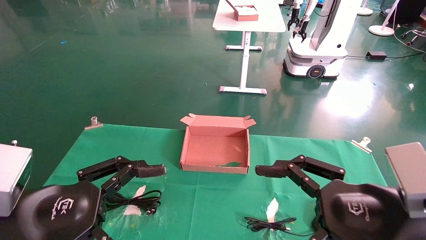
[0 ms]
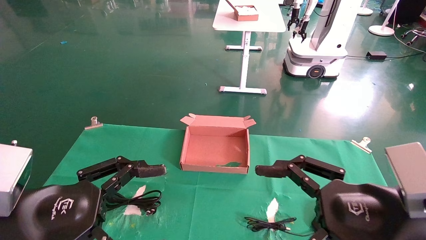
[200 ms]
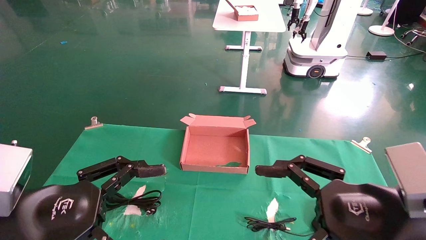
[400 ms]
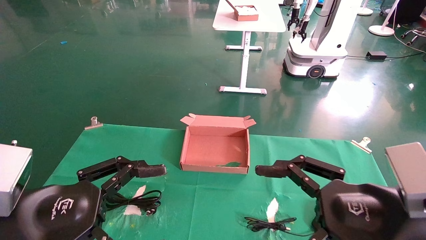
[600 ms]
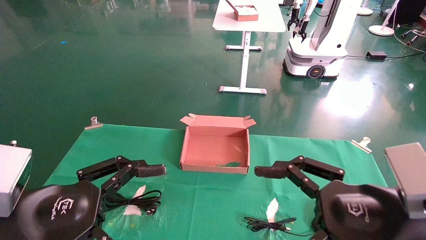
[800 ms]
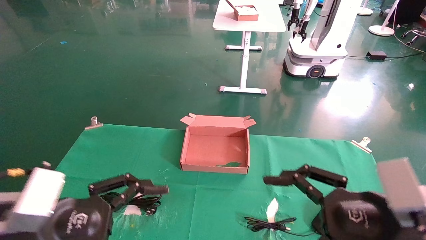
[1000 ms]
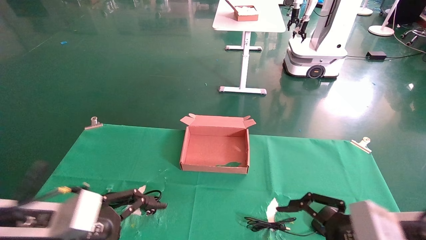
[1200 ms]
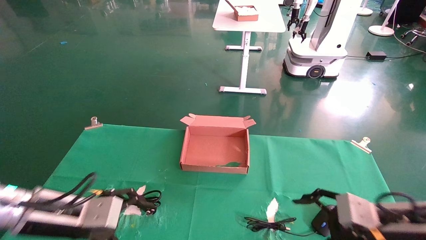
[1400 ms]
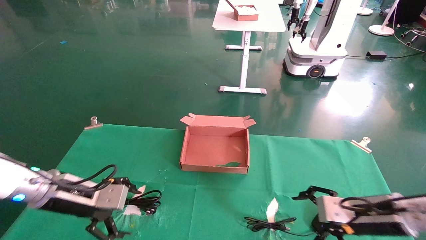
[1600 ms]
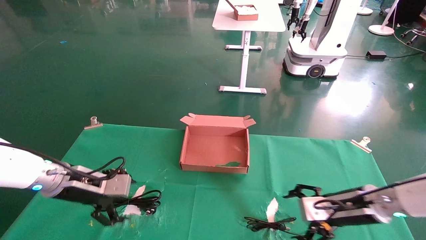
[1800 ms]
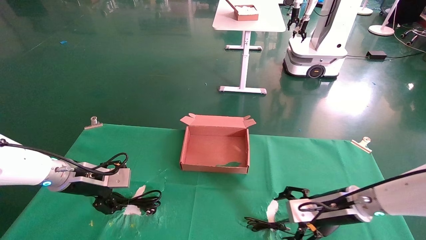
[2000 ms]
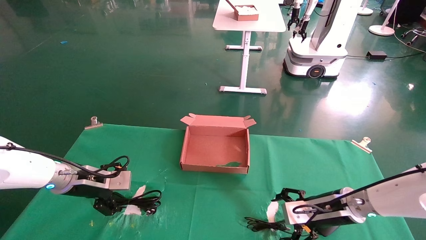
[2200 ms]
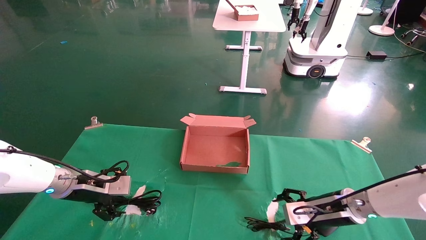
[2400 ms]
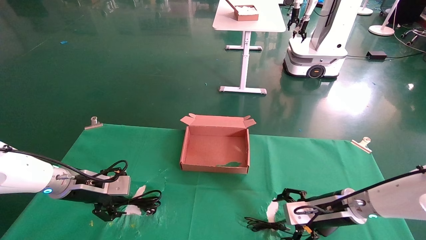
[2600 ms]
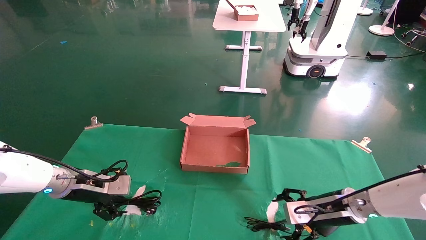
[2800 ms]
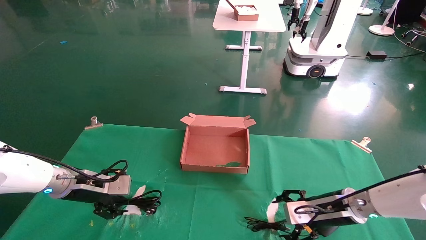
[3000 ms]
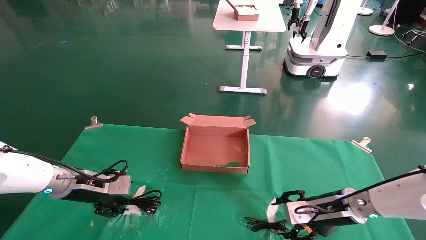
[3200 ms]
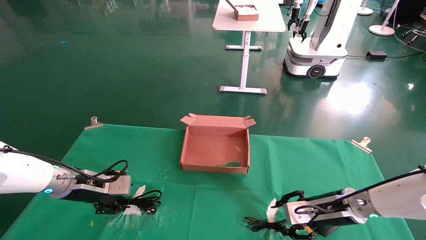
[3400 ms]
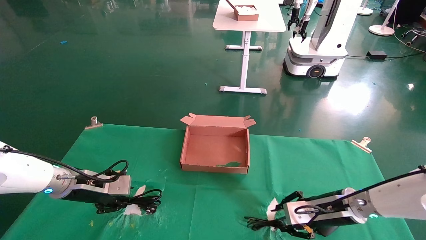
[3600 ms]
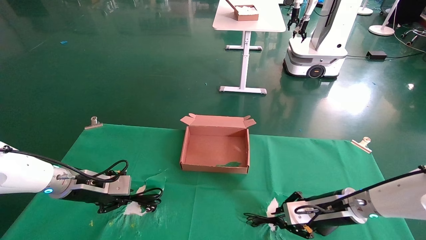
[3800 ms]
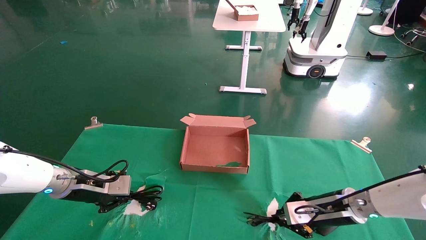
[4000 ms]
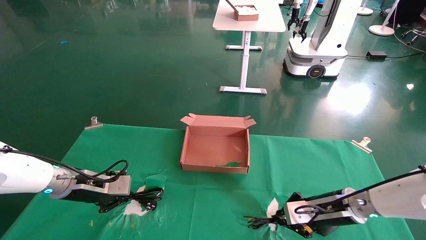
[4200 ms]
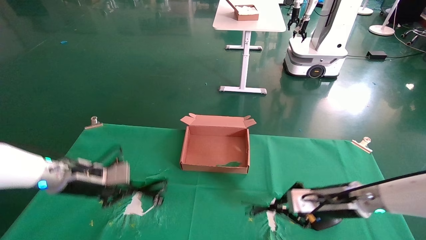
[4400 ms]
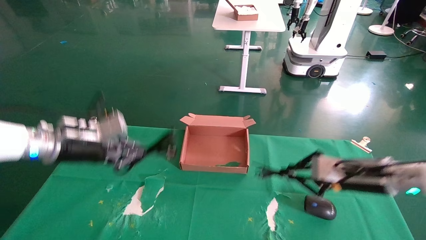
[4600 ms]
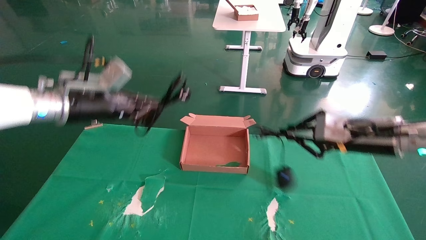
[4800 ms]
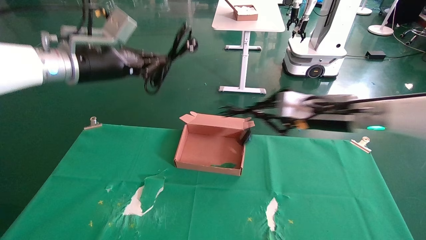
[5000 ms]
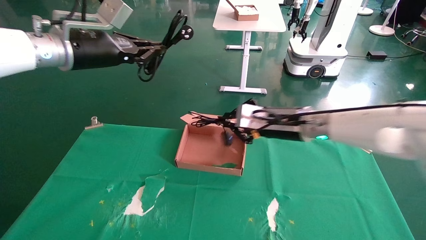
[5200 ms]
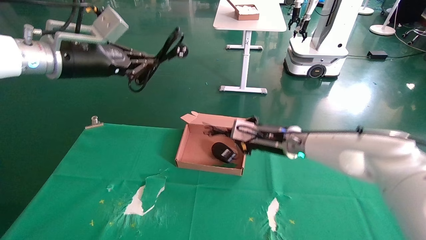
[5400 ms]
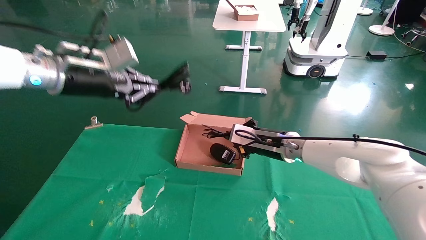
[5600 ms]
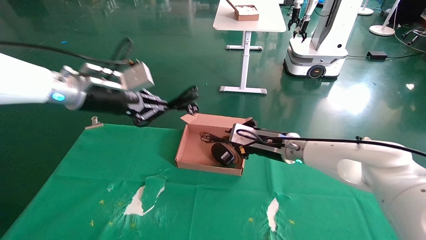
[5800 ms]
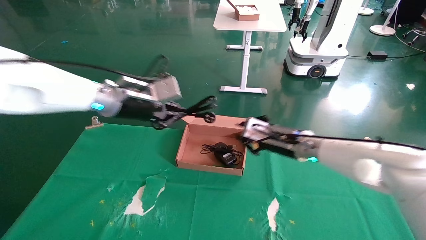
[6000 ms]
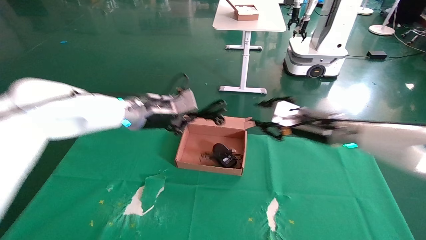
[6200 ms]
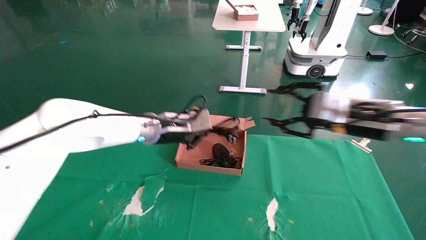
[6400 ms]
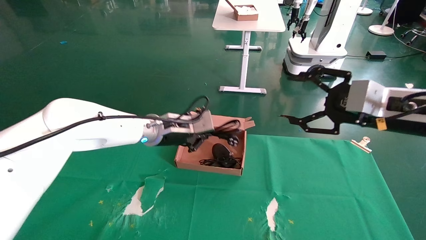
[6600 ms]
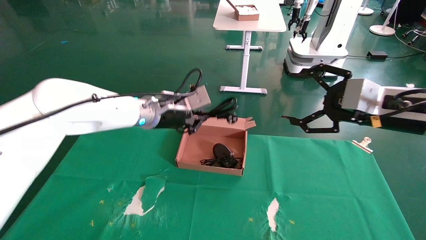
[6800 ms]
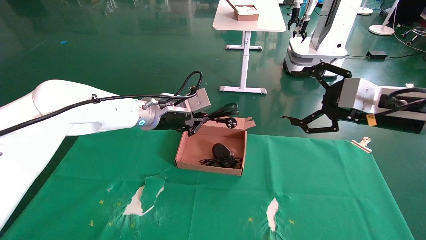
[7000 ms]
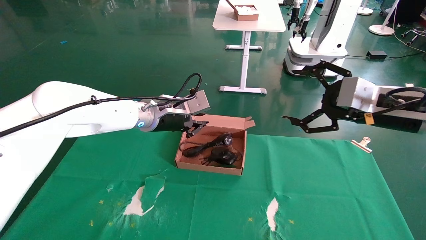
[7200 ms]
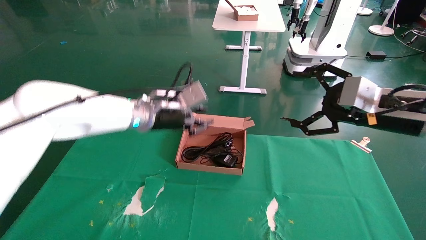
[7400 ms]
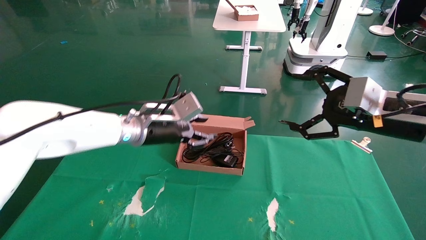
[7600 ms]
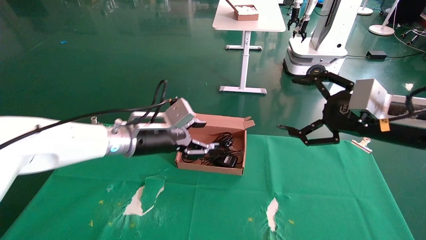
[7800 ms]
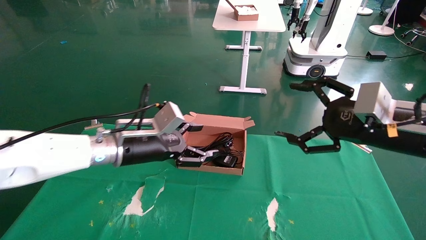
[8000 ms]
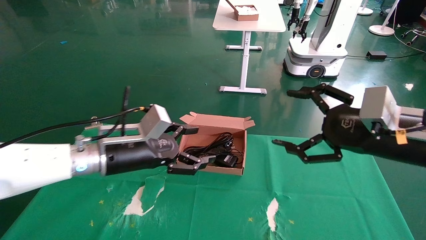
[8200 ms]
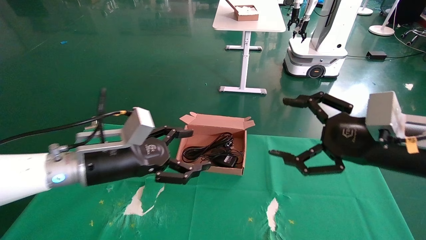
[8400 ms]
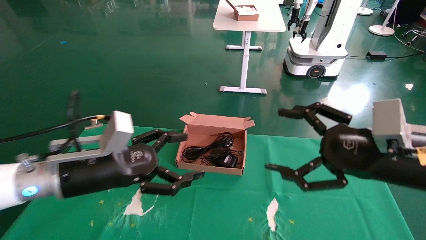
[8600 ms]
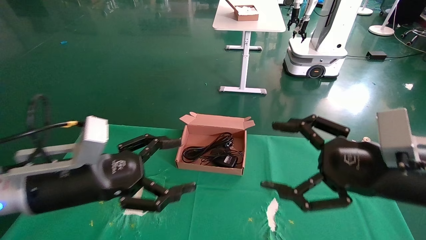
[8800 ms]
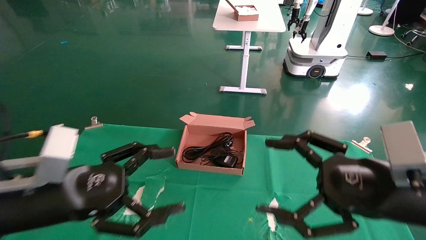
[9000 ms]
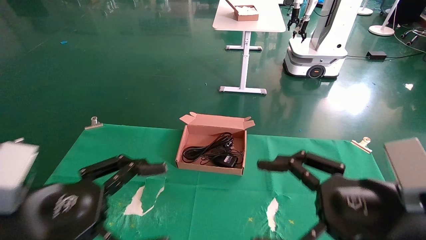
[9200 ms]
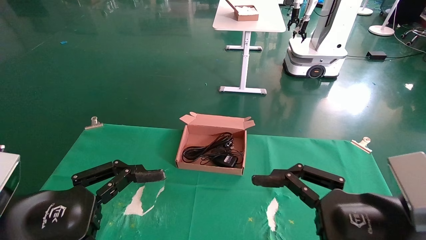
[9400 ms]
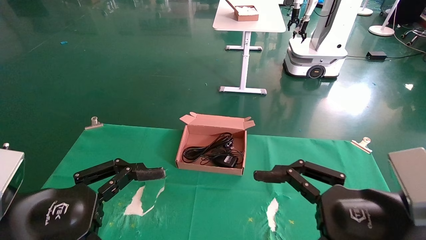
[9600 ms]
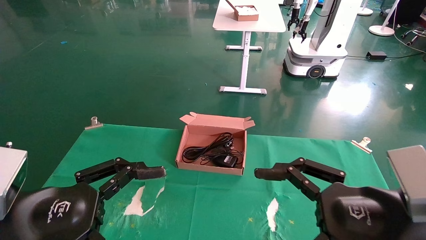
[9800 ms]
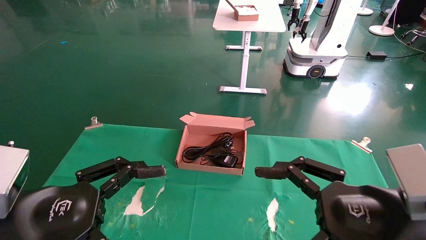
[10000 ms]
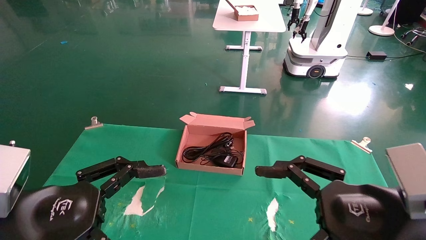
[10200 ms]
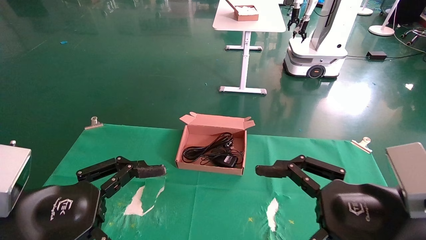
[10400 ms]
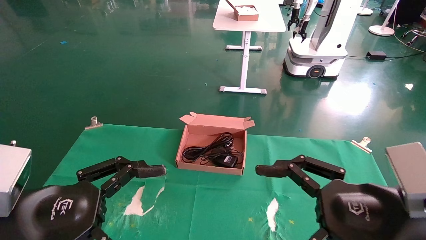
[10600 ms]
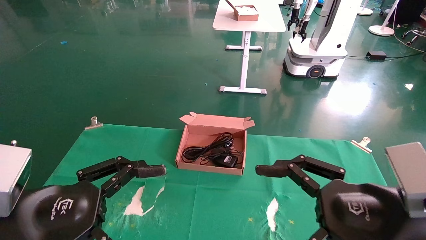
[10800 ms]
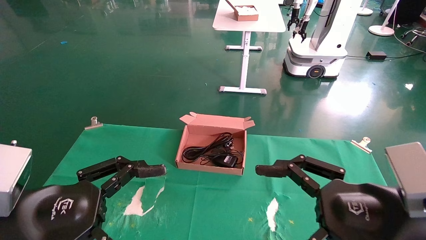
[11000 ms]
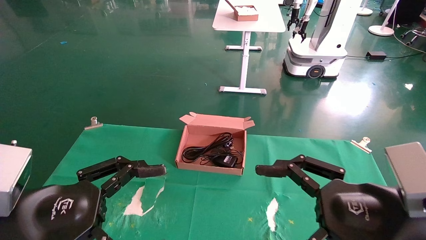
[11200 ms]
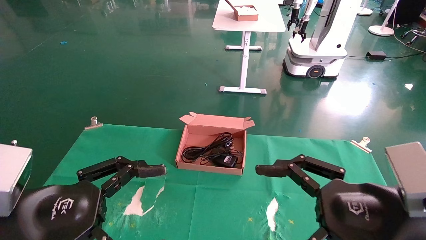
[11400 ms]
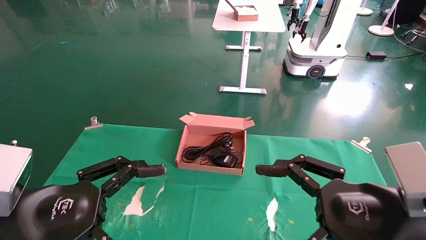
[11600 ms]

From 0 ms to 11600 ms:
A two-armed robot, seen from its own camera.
Step, from 1000 ms to 4000 ms: Grab and lift both the mouse and power cord from the accessory packaging area at the same time.
Step, from 4200 ms to 7400 ms: Place the mouse and power cord into the box.
From 0 ms to 1400 ms: The right gripper is displaced forward, downward and to the right by some 15 cm. Meanwhile the left gripper goes roughly 15 cm forward and downward.
From 1400 ms to 2800 ms: Both grippers move forward, roughly 10 cm.
From 2800 ms to 4400 ms: The right gripper closes up; the left gripper ends up roughly 5 cm from where it was, and closes up.
From 4400 ms to 5800 ms: The right gripper moves to the left, forward and upward, about 15 cm. Meanwhile the left gripper is displaced upward and to the right by about 20 cm.
From 5800 ms to 7200 ms: The left gripper goes about 10 cm to the right and downward. The right gripper travels to the right, backward and upward by about 25 cm, and opens.
From 7200 ms to 8800 ms: The left gripper travels backward and to the left by roughly 20 cm, and opens, while the right gripper heads backward and downward, covering roughly 10 cm.
From 8800 ms to 10200 ms: The left gripper shifts approximately 10 cm backward; the right gripper shifts by some 5 cm.
From 10200 ms to 11600 ms: Neither gripper changes place.

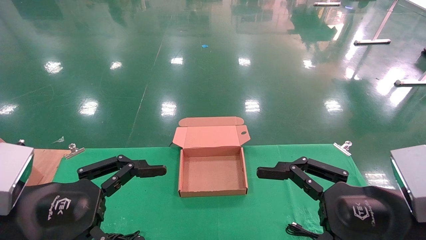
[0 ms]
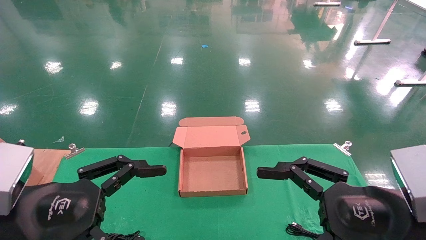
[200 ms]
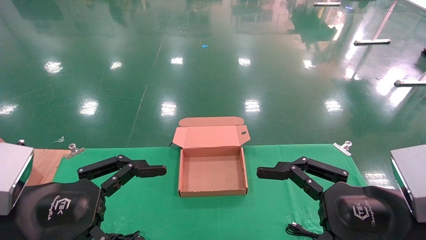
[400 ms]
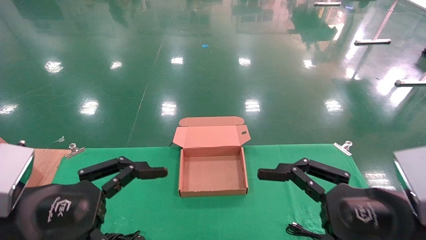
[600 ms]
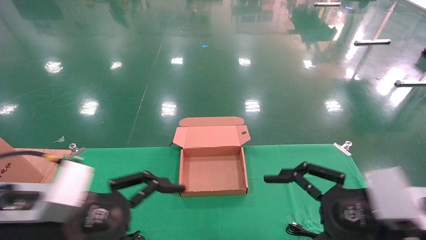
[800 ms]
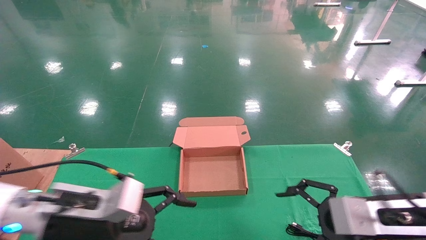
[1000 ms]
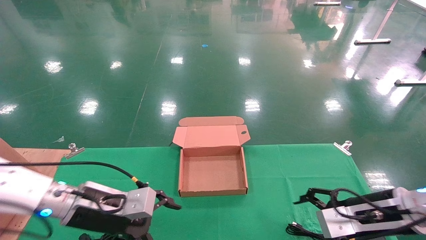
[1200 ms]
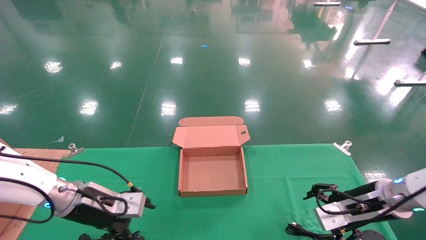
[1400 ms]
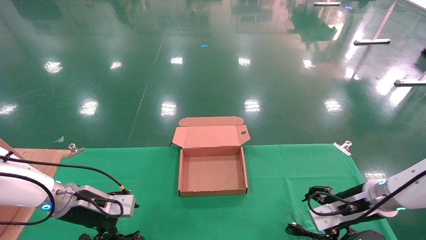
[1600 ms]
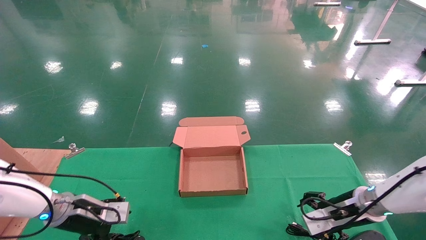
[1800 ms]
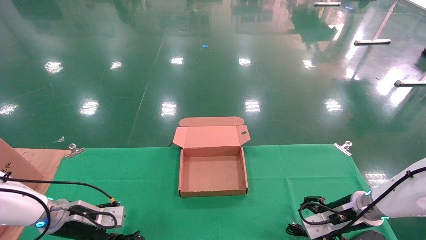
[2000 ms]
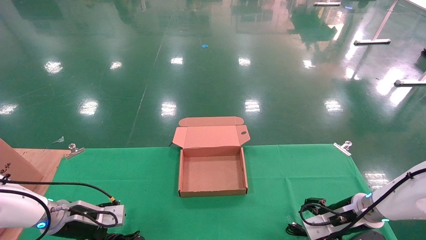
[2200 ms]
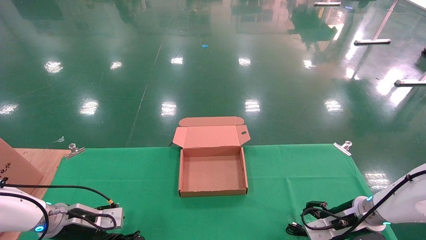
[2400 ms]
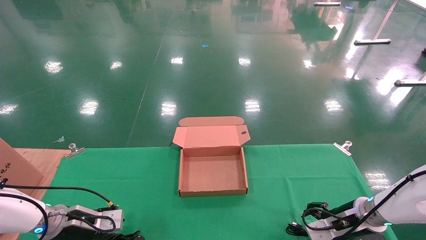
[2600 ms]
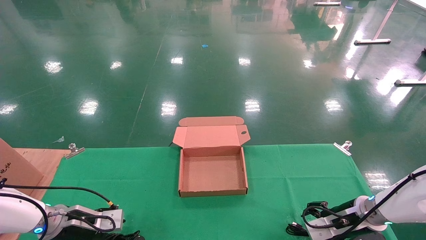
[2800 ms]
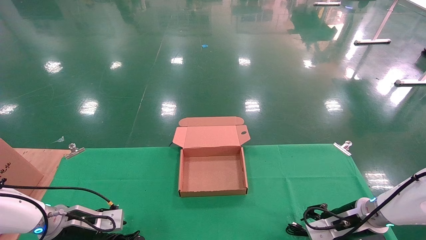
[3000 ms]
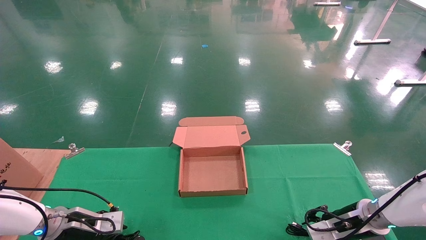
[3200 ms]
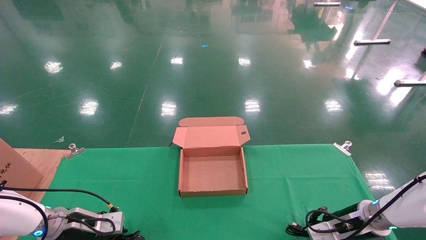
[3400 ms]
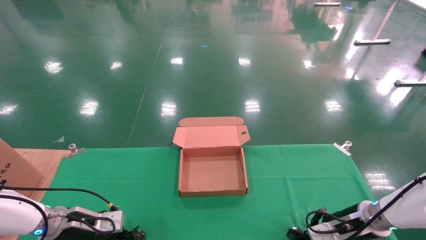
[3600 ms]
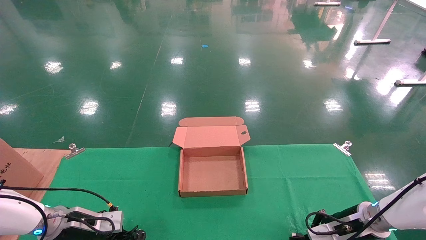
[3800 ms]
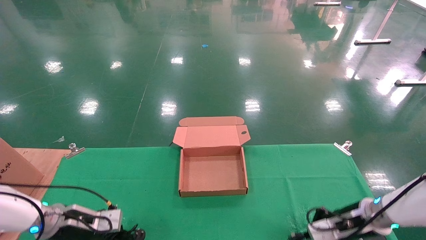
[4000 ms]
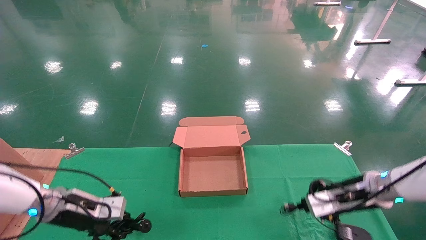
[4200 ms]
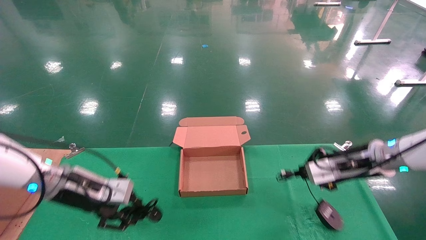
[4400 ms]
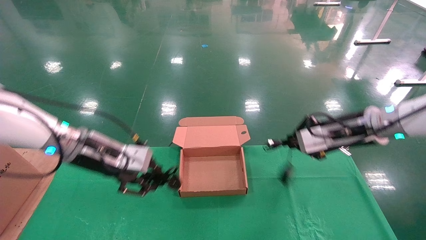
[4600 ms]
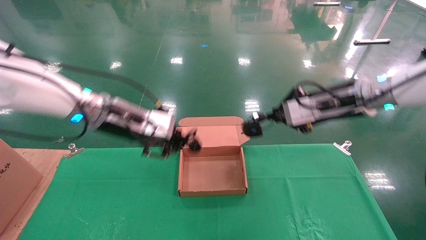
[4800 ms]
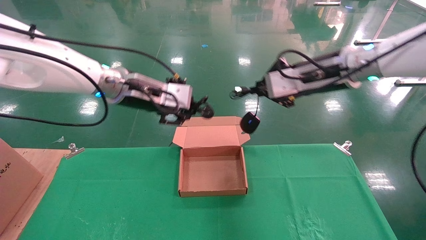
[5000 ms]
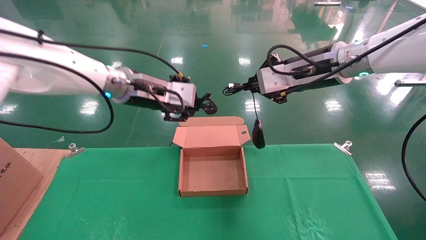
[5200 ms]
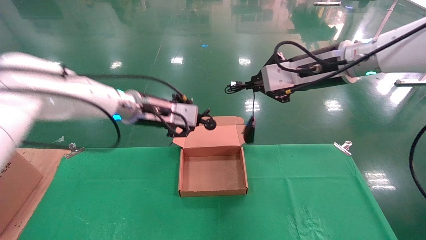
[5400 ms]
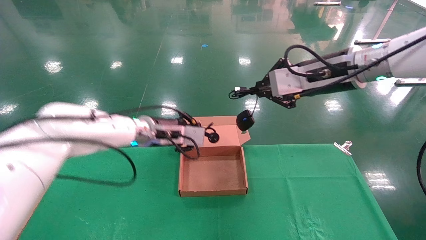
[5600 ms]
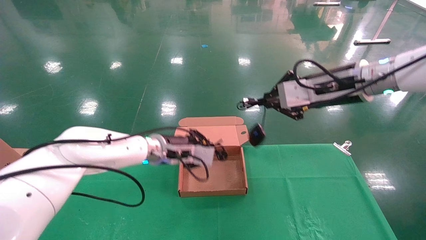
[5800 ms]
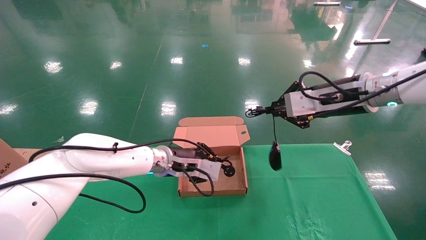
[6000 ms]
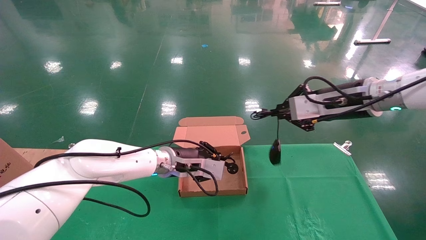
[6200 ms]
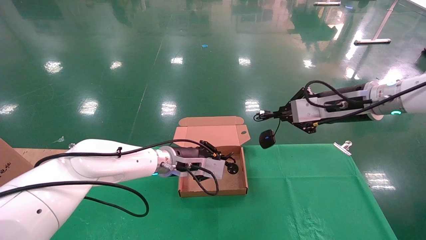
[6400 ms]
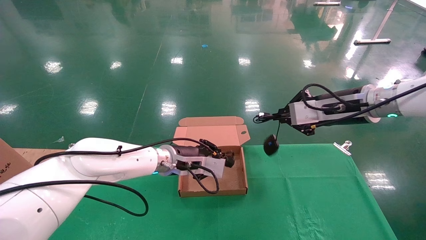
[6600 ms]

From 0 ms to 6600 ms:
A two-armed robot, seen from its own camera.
Step, from 1400 ms to 4800 ms: Grab and lift both the mouse and power cord from the accessory packaging area at the same time.
From 0 ms to 1600 ms: The two grippers go some 25 cm forward and downward.
From 1600 ms to 3200 ms: The grippers both shift downward by approximately 5 cm. The left gripper closes its fingers.
From 3200 ms to 5000 ms: The left gripper shifts about 35 cm upward and to the right, and closes its fingers, while the right gripper is displaced upward by roughly 30 cm, and closes up.
From 5000 ms to 6600 ms: The right gripper shifts by roughly 5 cm. The left gripper travels downward and to the right by some 20 cm.
